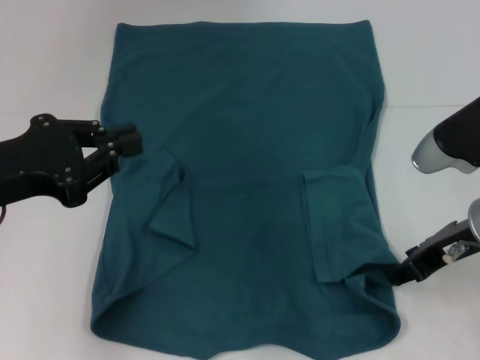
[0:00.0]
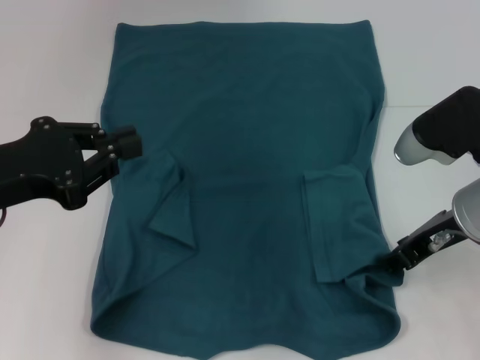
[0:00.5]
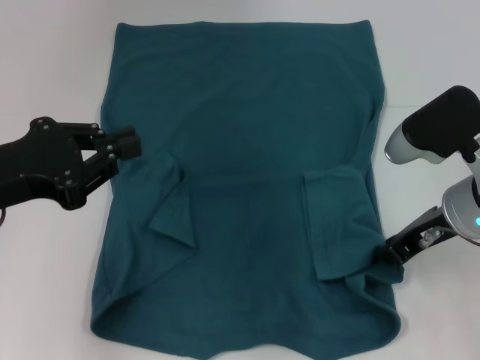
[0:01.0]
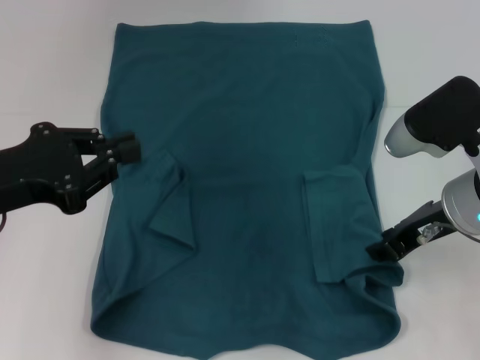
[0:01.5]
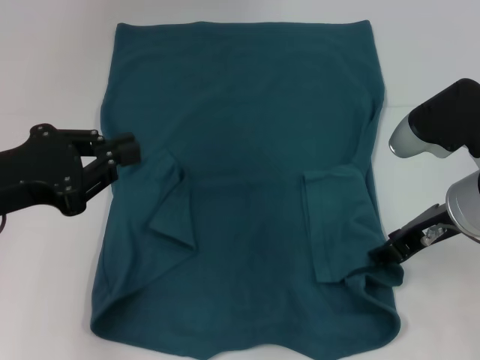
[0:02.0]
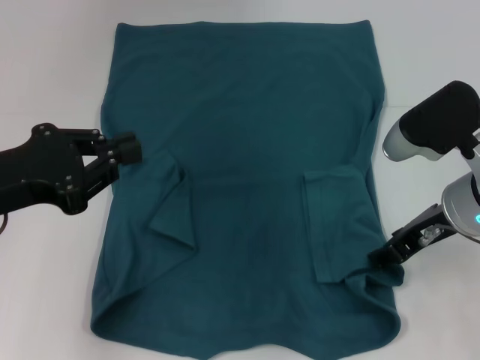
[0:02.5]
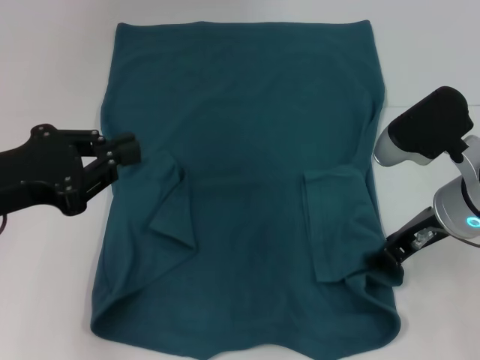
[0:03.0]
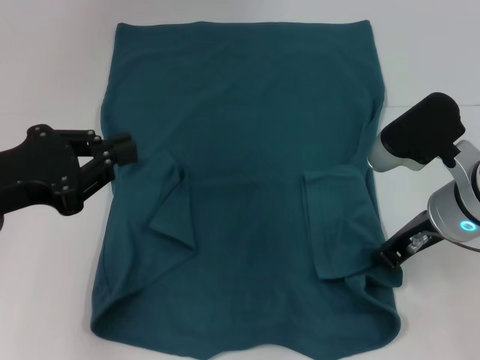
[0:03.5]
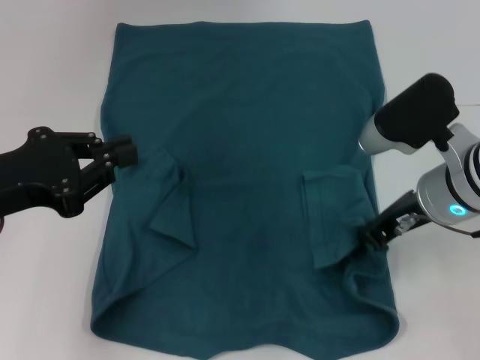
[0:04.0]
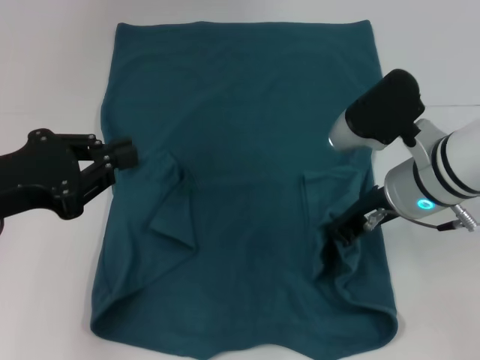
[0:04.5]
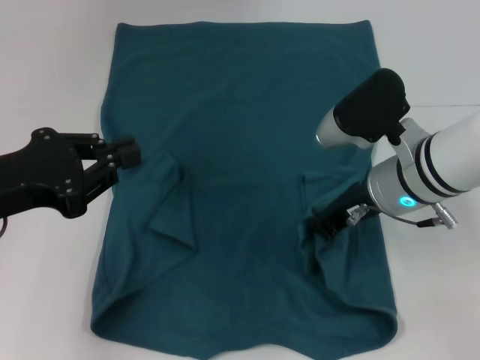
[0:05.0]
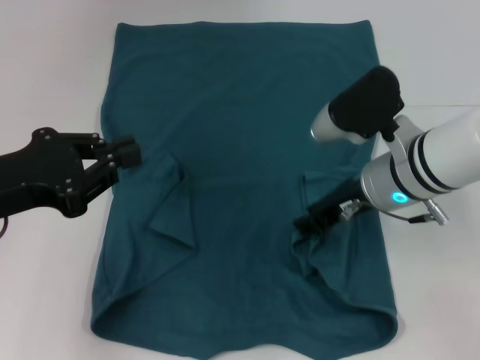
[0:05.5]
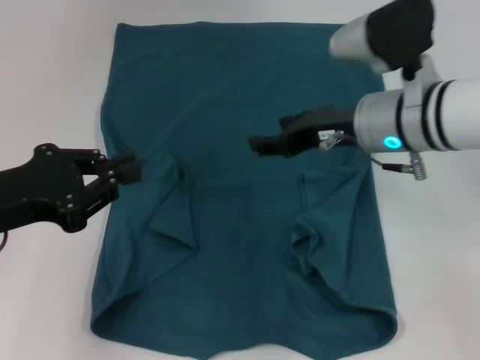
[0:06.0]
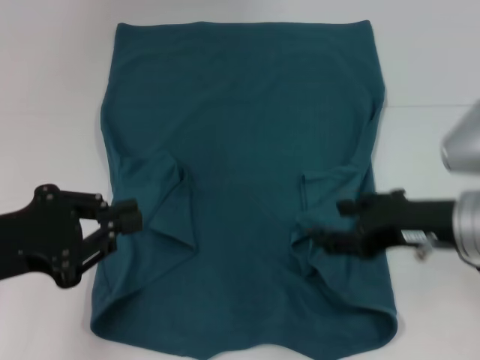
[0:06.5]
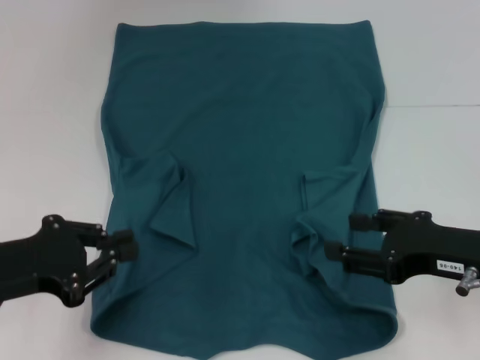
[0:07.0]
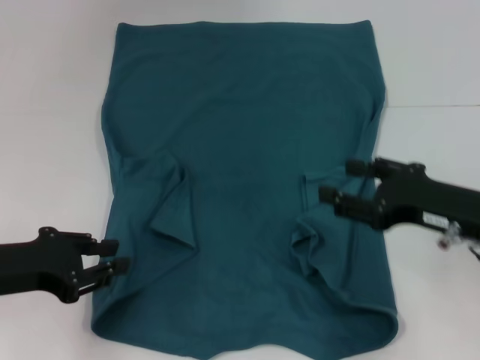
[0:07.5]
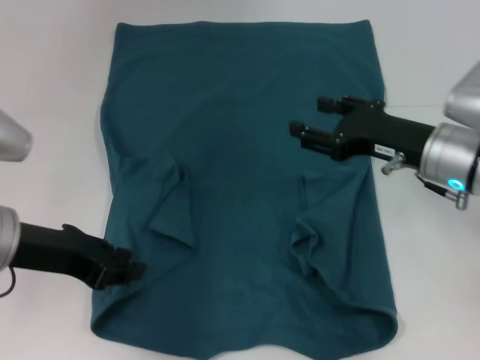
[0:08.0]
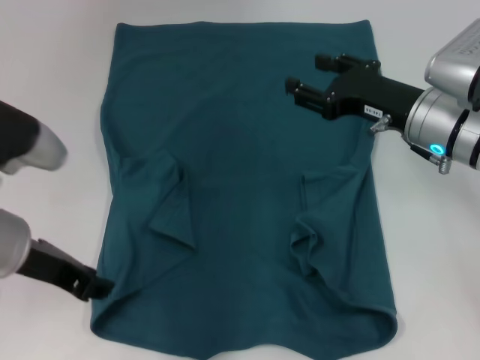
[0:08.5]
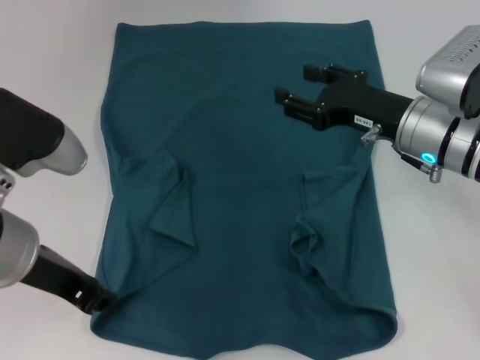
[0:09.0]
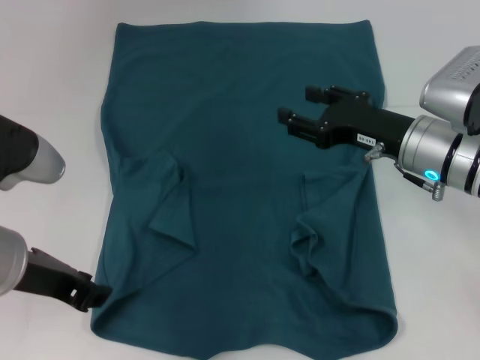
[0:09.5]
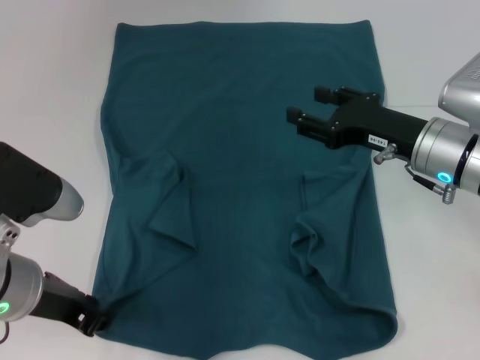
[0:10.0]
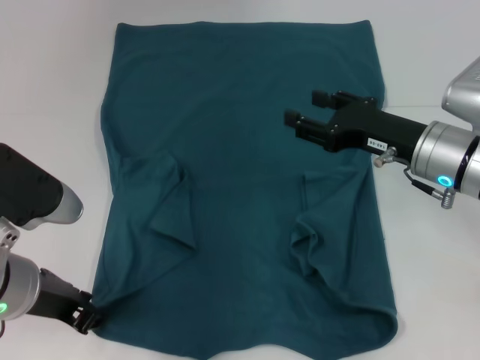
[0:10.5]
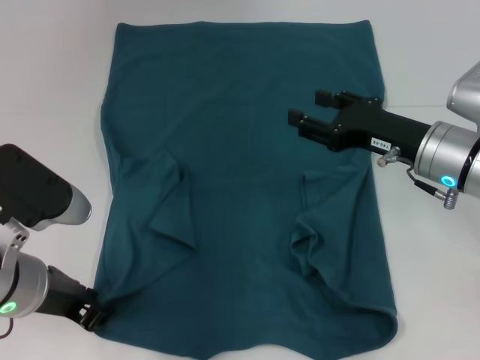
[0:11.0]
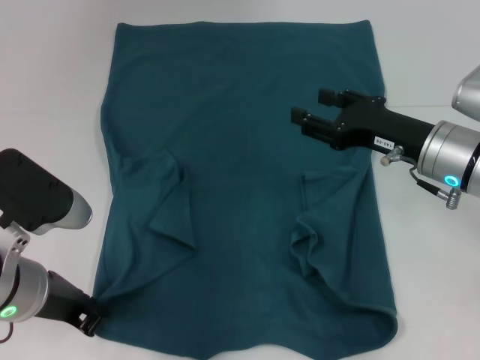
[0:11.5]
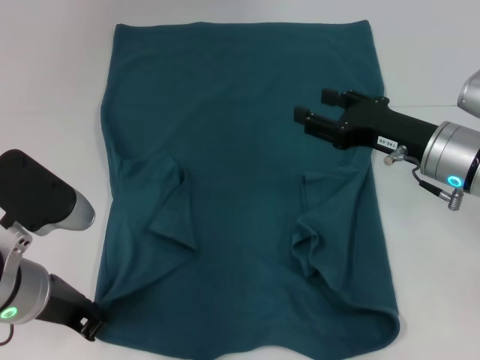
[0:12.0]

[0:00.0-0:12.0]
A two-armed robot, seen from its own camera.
0:00.0 to 0:02.0: The grippers make only small movements.
0:02.0 to 0:04.0: The right gripper closes its fingers.
0:04.0 to 0:06.0: The right gripper changes place by about 5 cm, and opens its fingers.
0:06.0 to 0:08.0: The right gripper goes some 5 cm to the right, and moves some 15 cm backward and comes back.
0:10.0 to 0:12.0: The left gripper closes up.

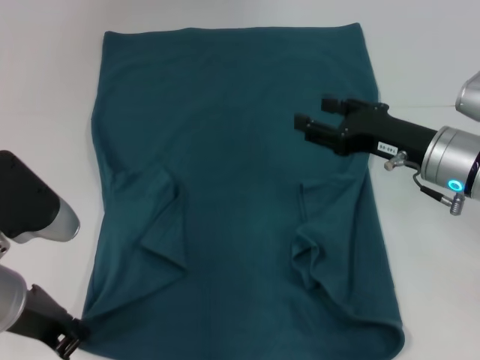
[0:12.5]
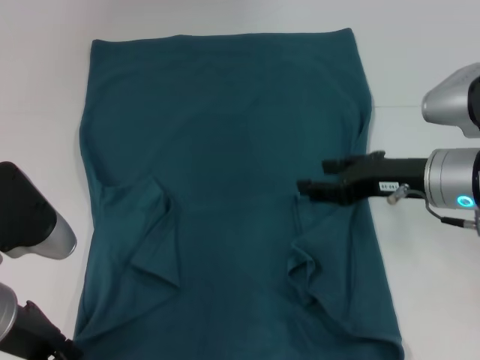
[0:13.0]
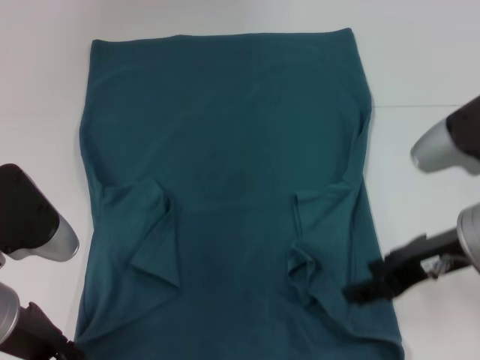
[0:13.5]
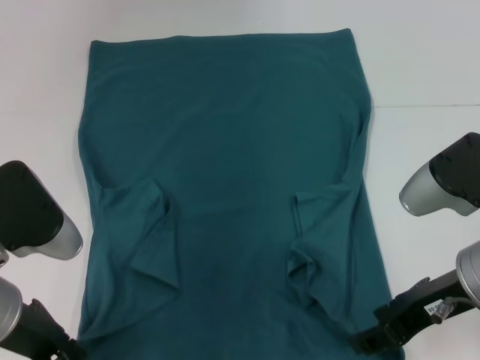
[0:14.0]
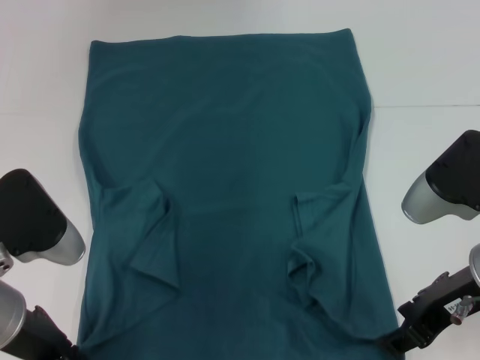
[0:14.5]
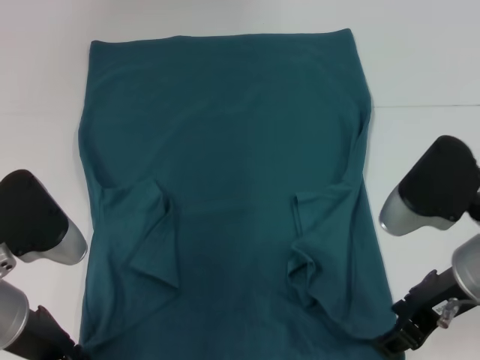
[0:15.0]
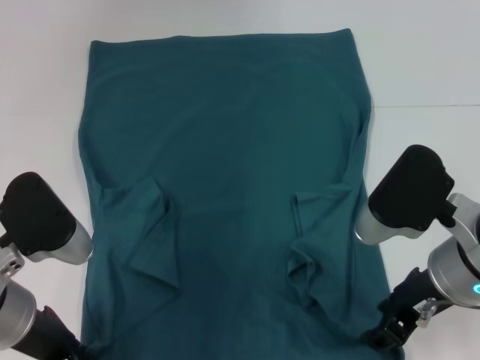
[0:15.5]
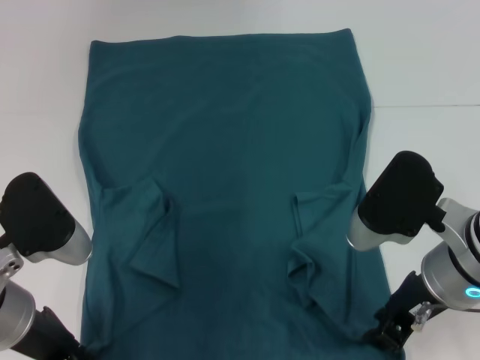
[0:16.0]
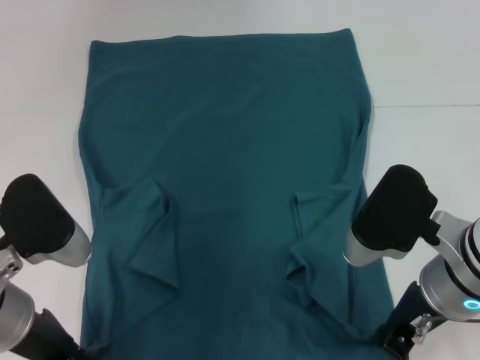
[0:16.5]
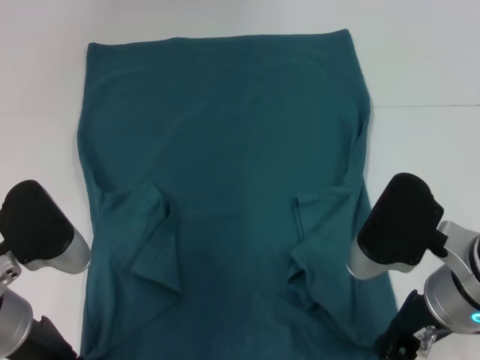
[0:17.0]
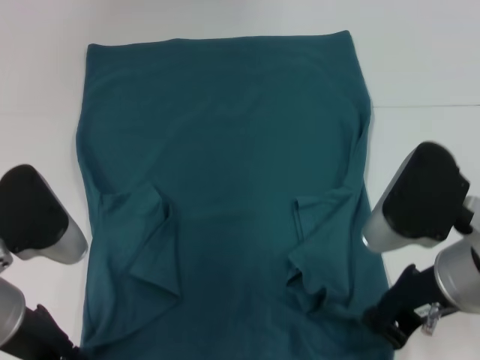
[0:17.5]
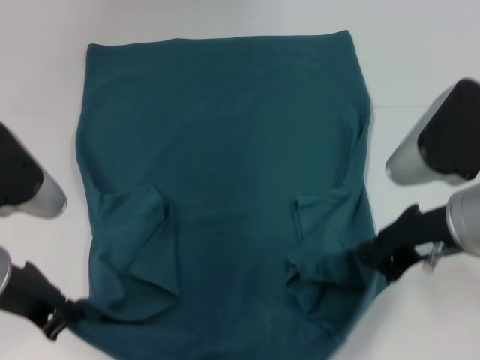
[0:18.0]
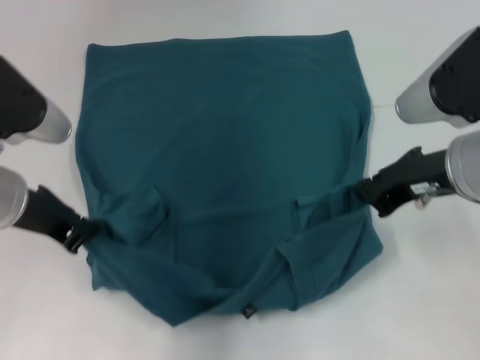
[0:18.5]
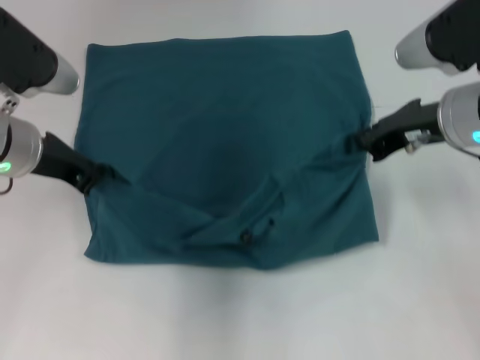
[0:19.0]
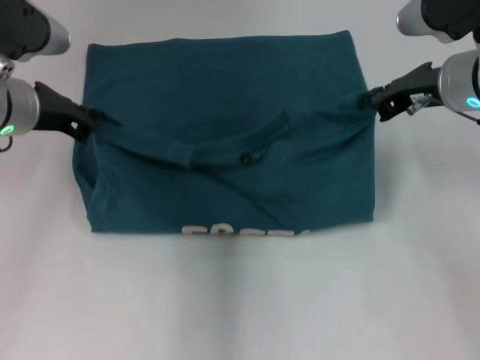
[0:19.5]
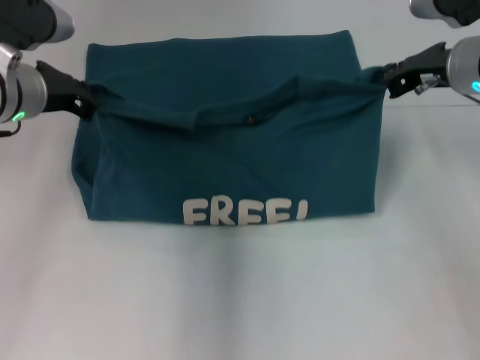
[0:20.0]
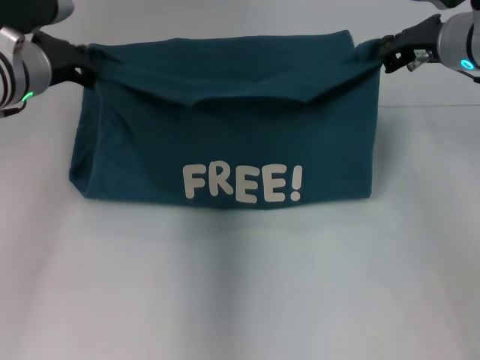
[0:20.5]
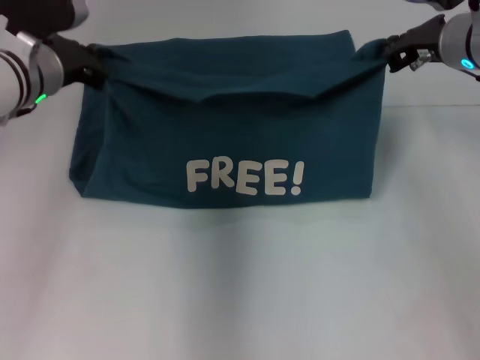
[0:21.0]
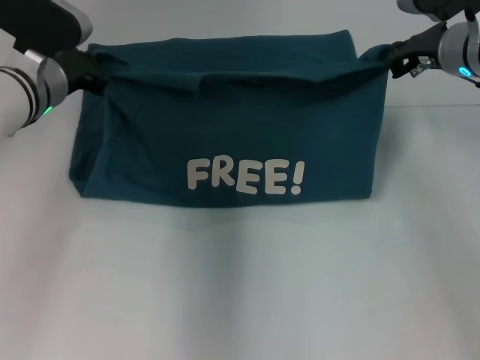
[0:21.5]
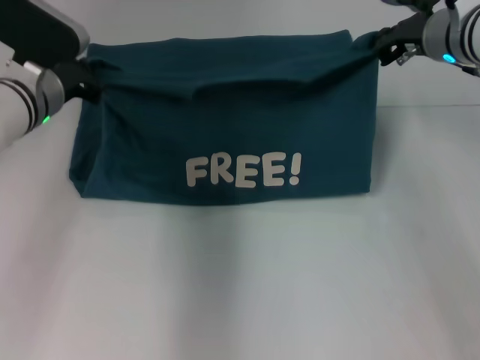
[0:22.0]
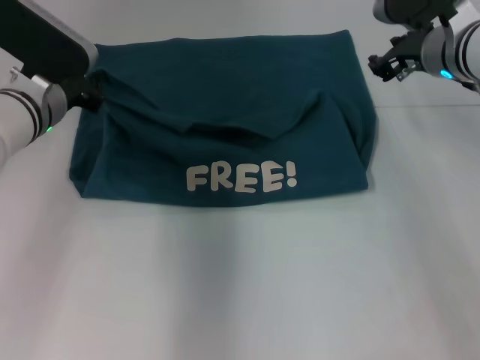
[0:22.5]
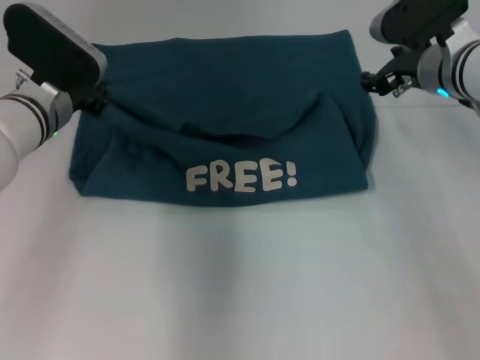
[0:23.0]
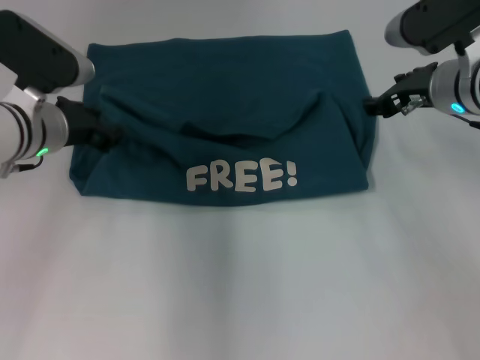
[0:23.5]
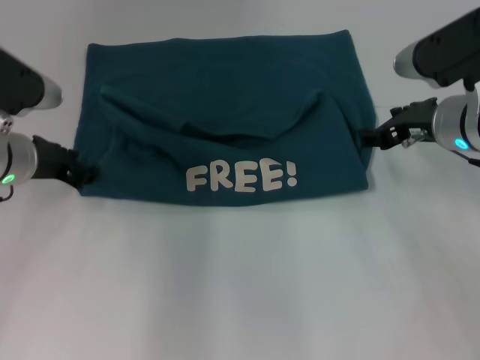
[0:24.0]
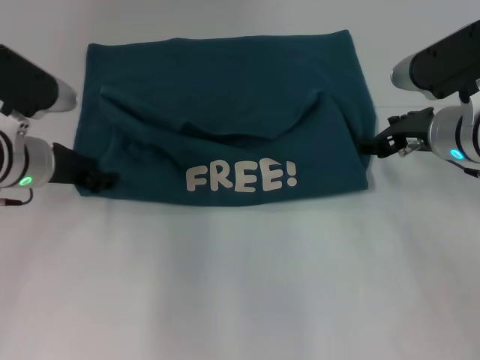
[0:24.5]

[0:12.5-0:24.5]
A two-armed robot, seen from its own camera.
Step, 0:12.5 to 0:22.5: Fold the clothes to the right.
0:12.5 to 0:14.5: The right gripper moves backward, some 10 cm.
0:14.5 to 0:16.5: The right gripper closes up.
0:16.5 to 0:18.5: The right gripper goes about 5 cm upward, while the left gripper heads forward and upward, covering about 10 cm.
0:18.5 to 0:20.5: The grippers both shift forward by approximately 10 cm.
0:20.5 to 0:22.5: The left gripper goes roughly 5 cm downward.
0:22.5 to 0:24.5: The right gripper moves backward, about 10 cm, and opens up, while the left gripper opens up.

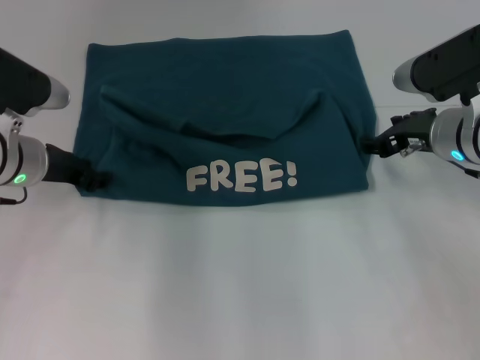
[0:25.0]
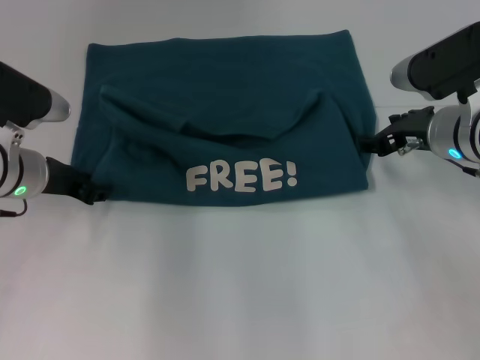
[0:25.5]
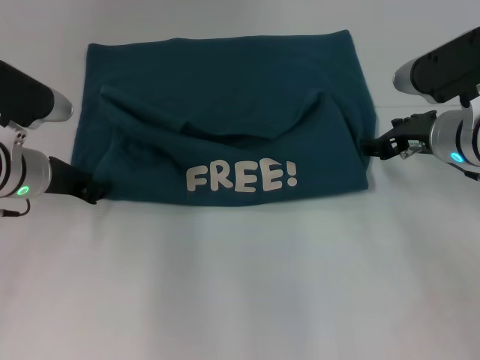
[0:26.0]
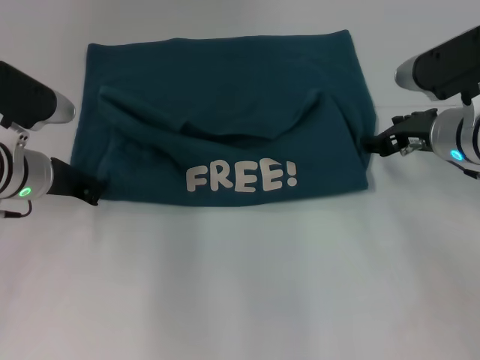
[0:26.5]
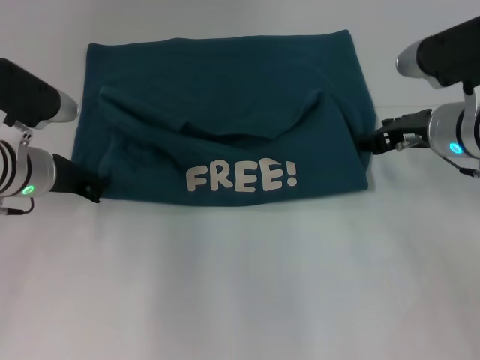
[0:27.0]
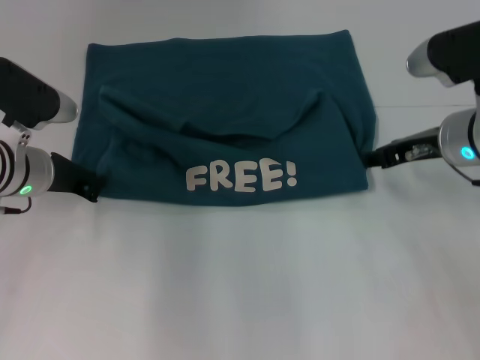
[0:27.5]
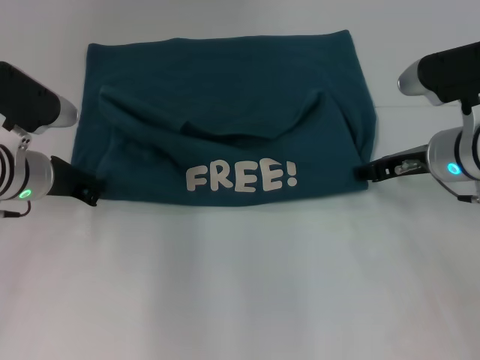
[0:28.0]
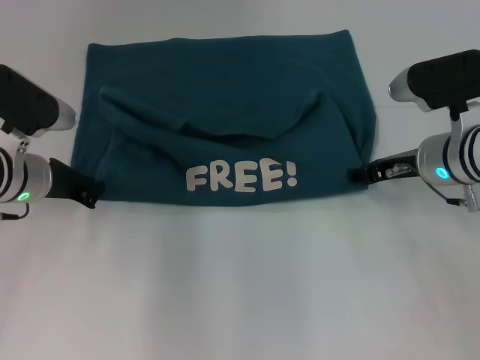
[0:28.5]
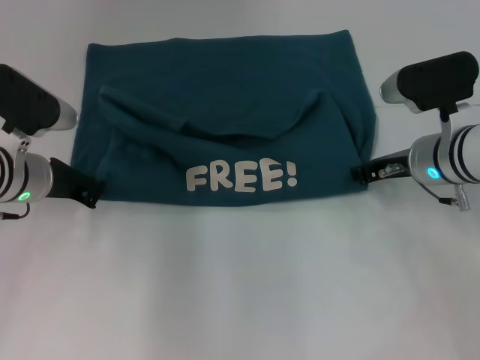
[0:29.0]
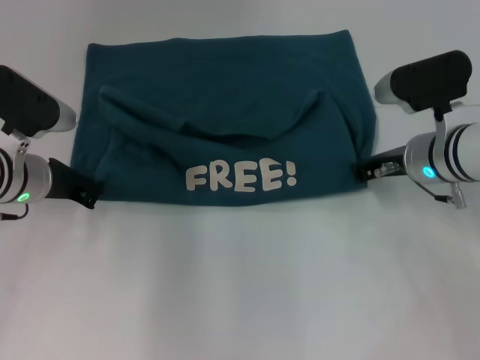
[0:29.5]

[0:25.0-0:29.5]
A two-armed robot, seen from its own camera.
0:25.0 to 0:27.0: The left gripper closes up.
0:27.0 to 0:29.5: The right gripper closes up.
